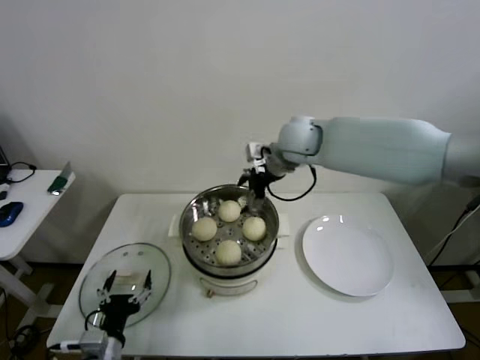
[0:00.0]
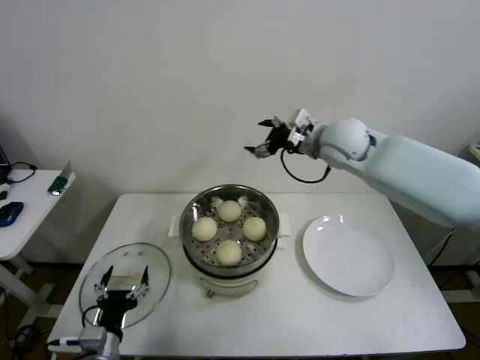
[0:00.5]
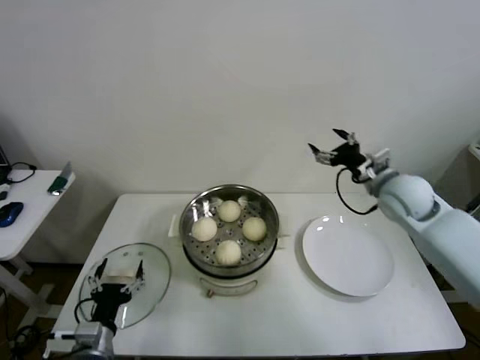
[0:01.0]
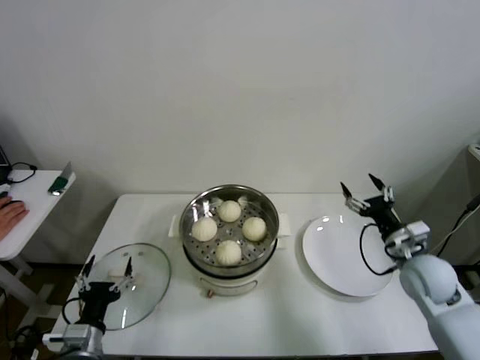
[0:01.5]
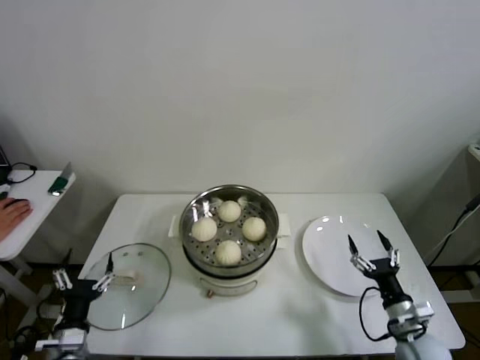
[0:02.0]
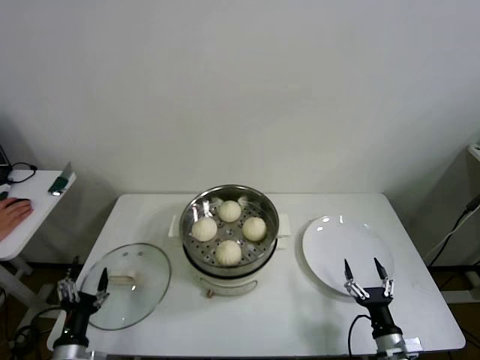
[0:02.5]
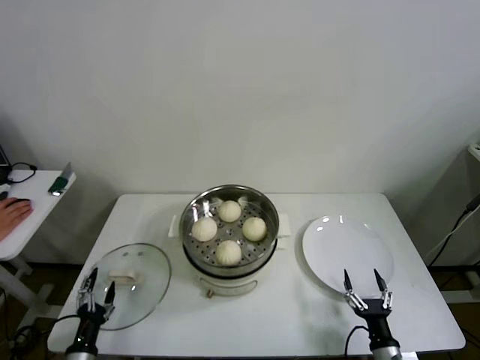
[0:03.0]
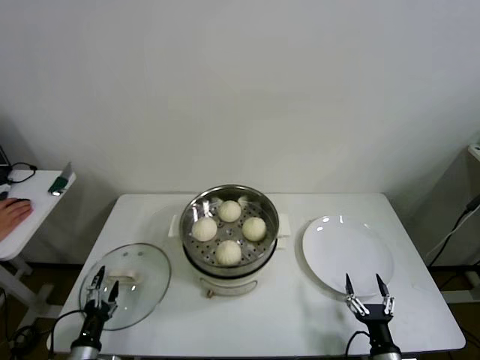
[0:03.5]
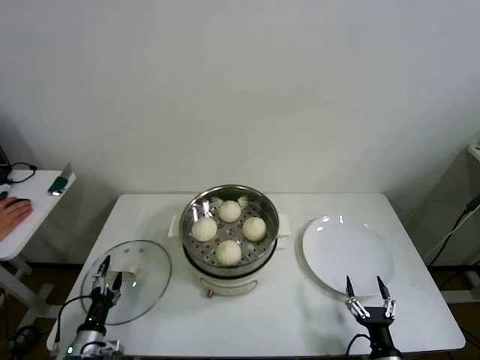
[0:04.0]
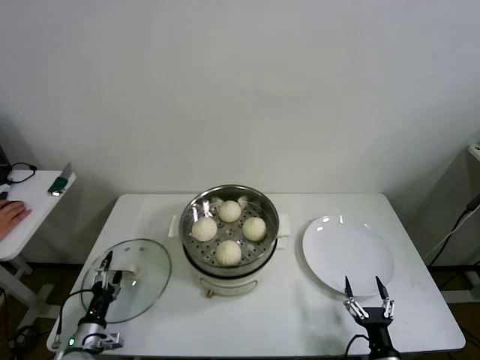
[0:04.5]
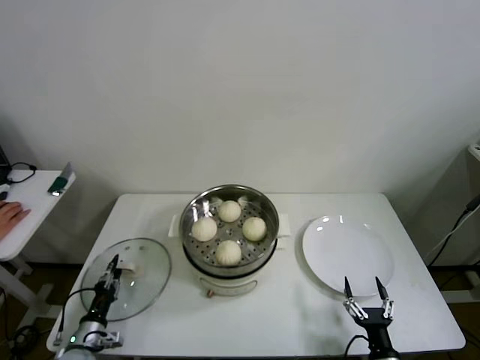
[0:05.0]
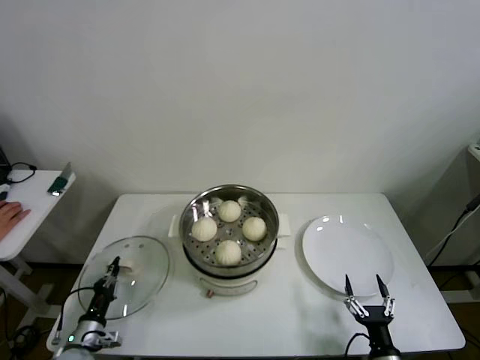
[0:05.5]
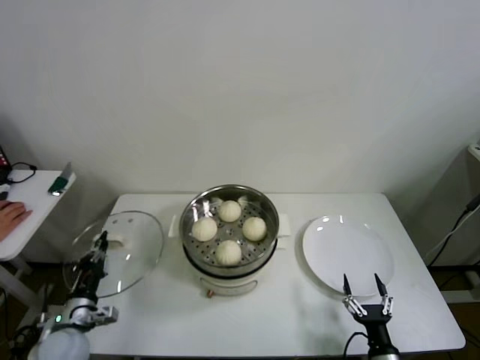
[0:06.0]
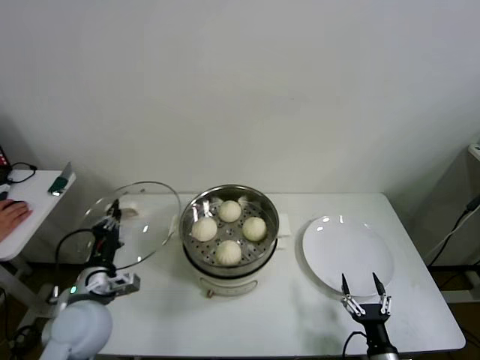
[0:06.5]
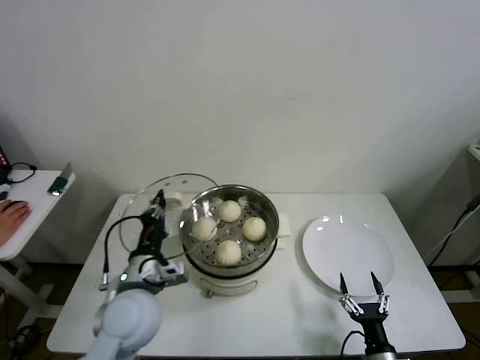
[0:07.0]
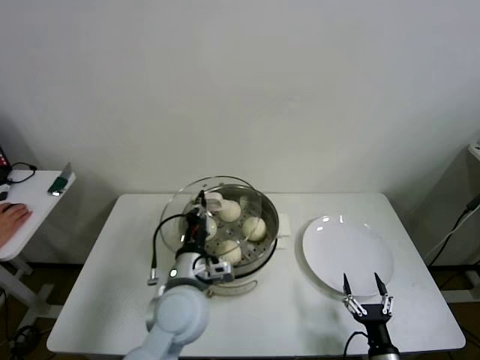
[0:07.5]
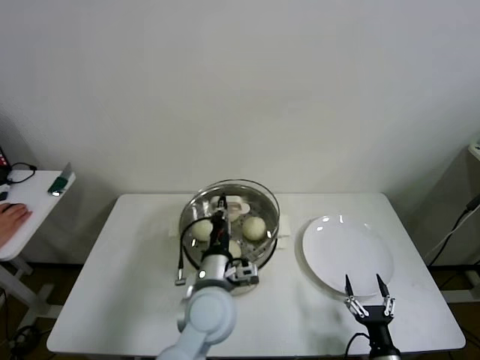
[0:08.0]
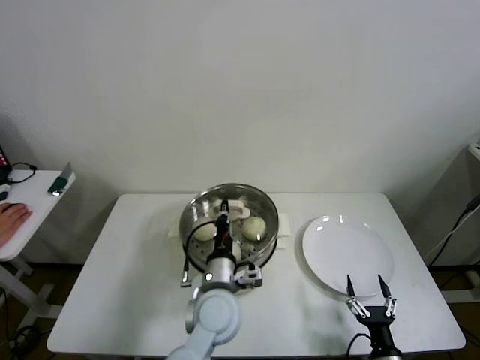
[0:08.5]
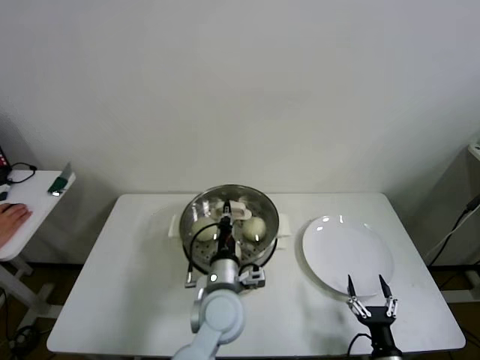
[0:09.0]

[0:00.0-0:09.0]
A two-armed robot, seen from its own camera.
Step, 0:00.0 to 0:05.0: Grasp the pot lid with left gripper.
0:00.0 to 0:02.0: The right gripper is displaced downward, backward and to the right by roughly 50 cm. The left gripper travels to the left by about 5 cm.
0:02.0 to 0:04.5: The right gripper travels backward, downward and to the left by some 15 cm. Meanwhile the left gripper shifts about 15 cm downward and to the left.
0:04.5 to 0:07.0: The left gripper is displaced upward and to the right by about 30 cm, and closes up.
0:07.0 to 0:09.0: The left gripper moves to the right, some 15 cm.

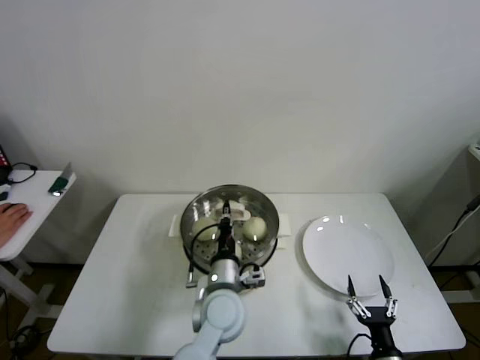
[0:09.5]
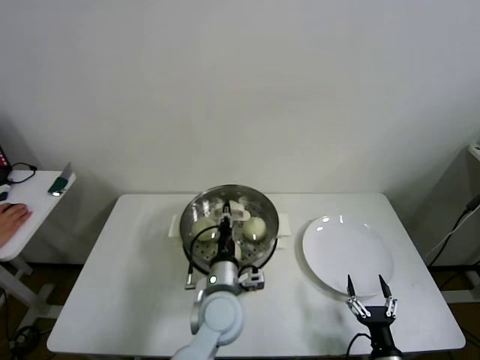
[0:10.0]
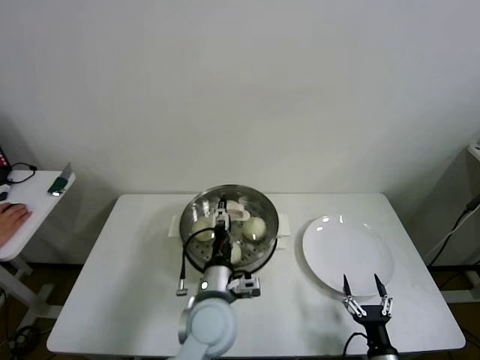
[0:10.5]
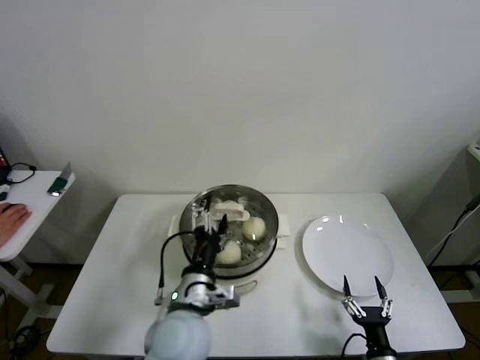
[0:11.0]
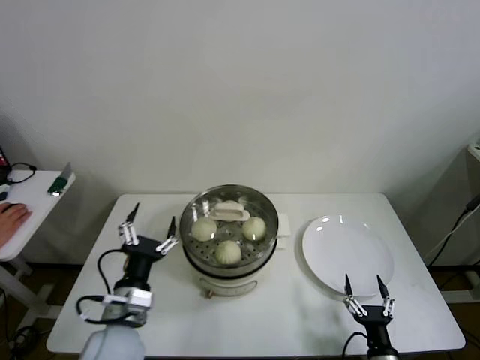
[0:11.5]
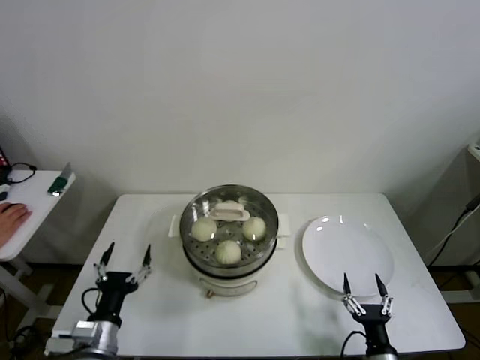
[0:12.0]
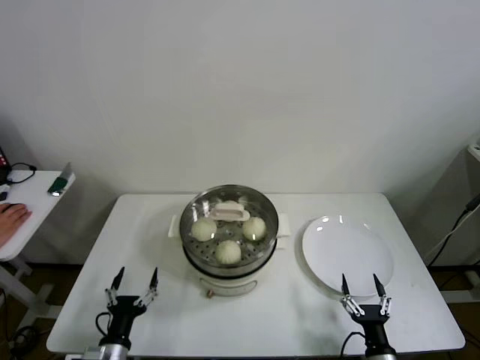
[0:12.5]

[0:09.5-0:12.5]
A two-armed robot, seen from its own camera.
0:09.5 to 0:11.0: The left gripper heads backward, upward and to the left, covering some 10 cm, and opens its fingers.
0:11.0 to 0:12.5: The left gripper goes roughly 25 cm to the left, downward and backward.
